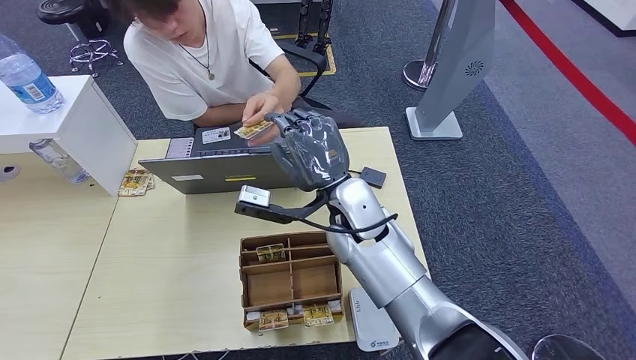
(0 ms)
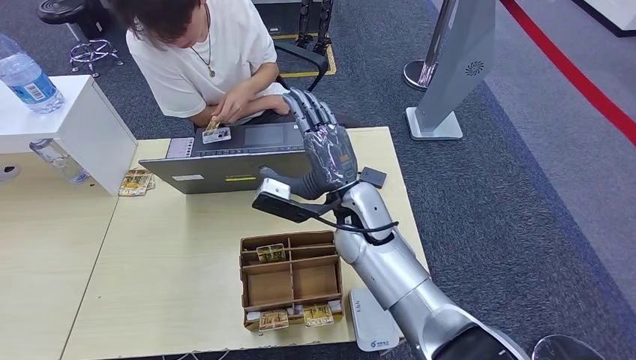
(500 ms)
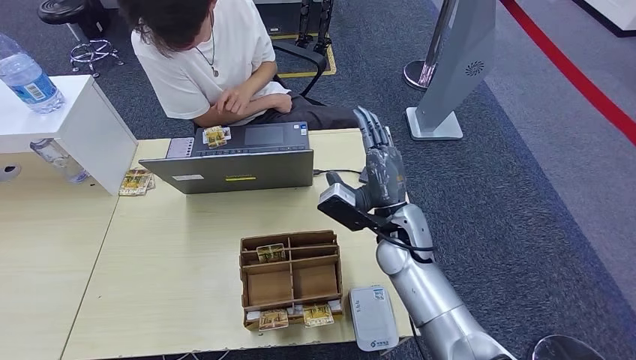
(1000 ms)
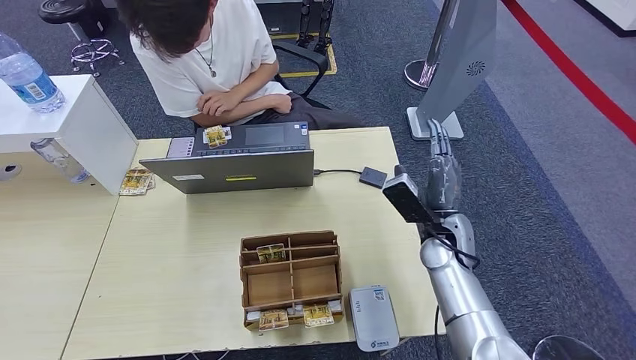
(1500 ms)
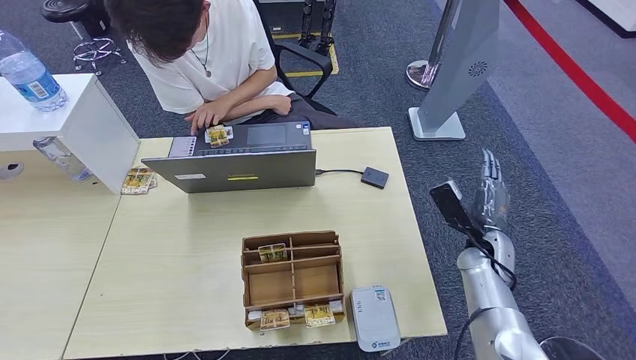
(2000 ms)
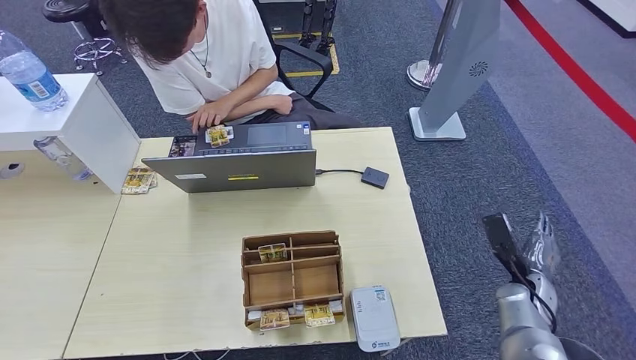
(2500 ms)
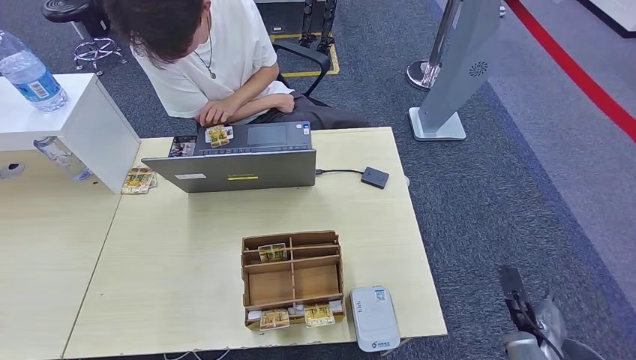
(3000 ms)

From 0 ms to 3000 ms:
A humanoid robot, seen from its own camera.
Step, from 0 ms to 3000 ms: Hand the room key to the person.
From 0 ms to 1500 ms: The right hand shifts approximately 20 cm to the right and downward.
From 1500 ms to 3000 ms: The right hand heads to the right, downward and backward, covering about 30 cm.
